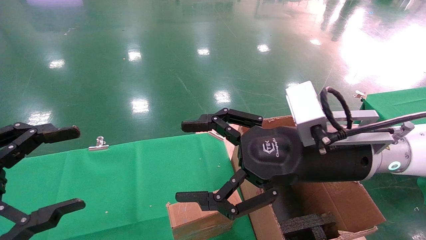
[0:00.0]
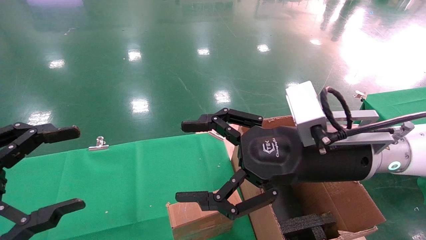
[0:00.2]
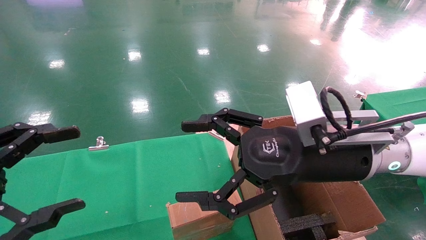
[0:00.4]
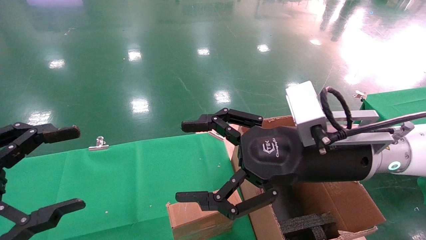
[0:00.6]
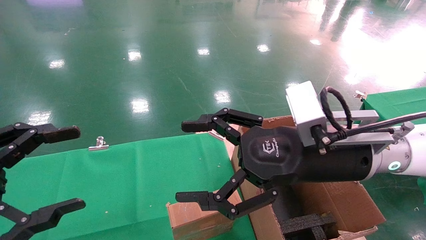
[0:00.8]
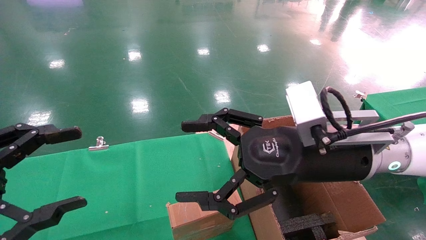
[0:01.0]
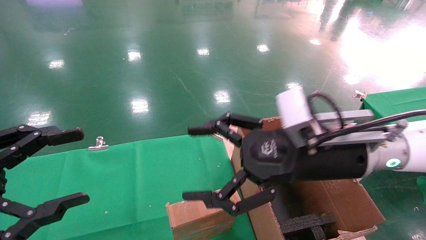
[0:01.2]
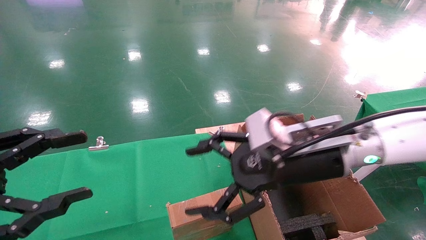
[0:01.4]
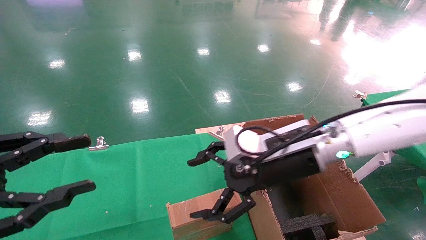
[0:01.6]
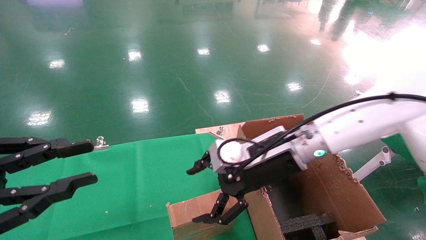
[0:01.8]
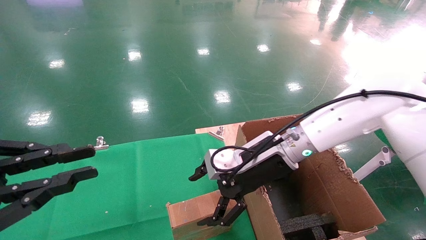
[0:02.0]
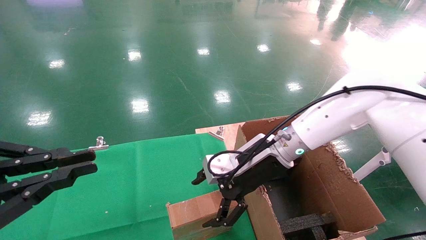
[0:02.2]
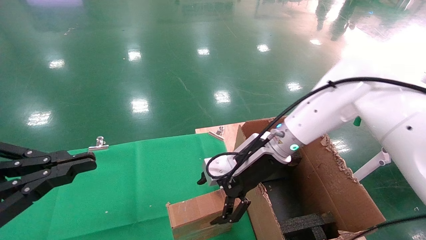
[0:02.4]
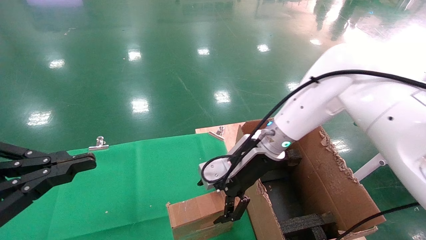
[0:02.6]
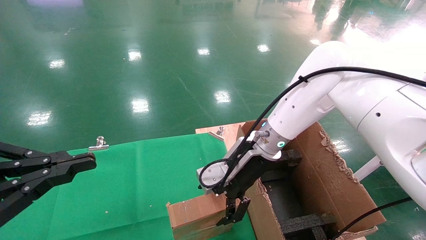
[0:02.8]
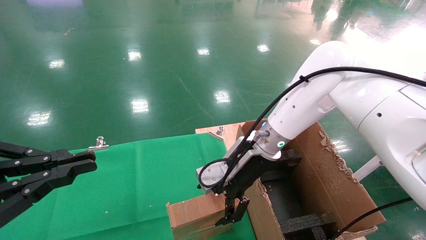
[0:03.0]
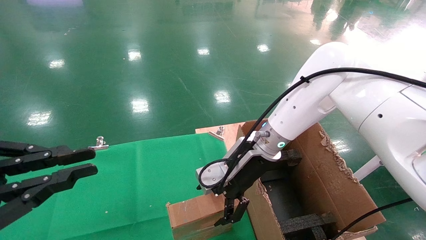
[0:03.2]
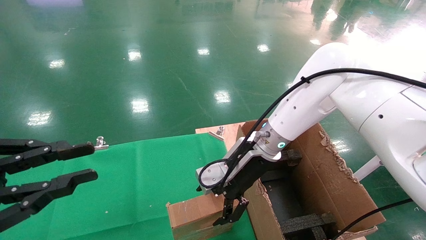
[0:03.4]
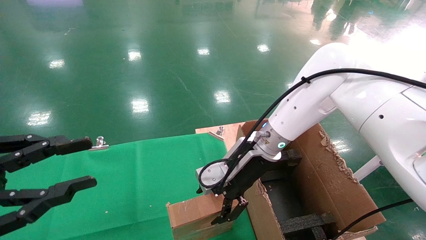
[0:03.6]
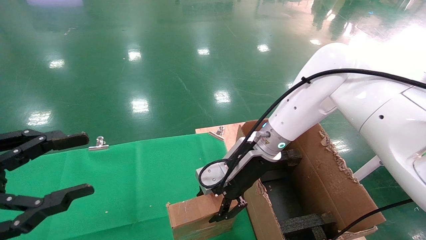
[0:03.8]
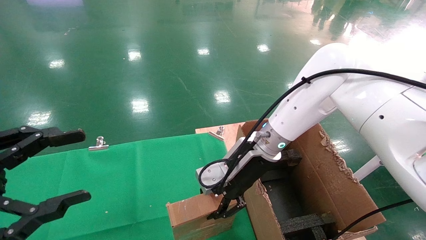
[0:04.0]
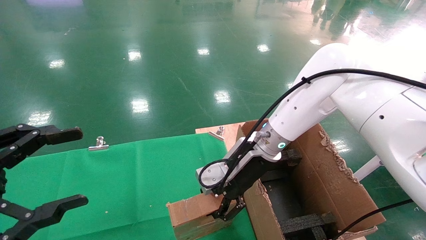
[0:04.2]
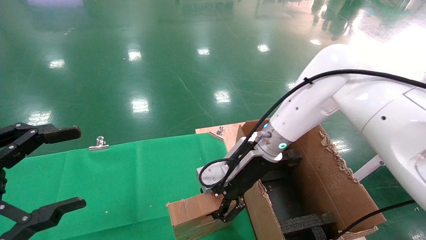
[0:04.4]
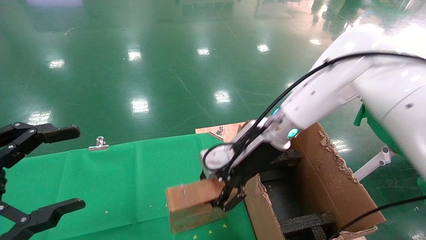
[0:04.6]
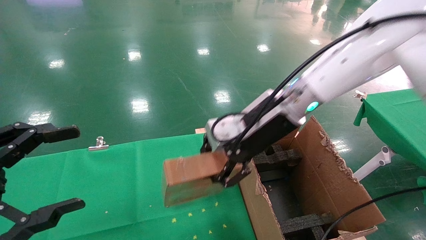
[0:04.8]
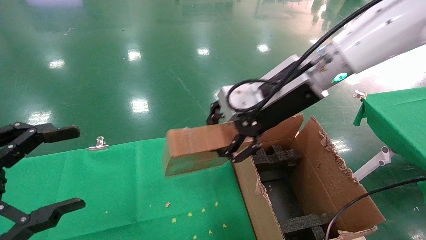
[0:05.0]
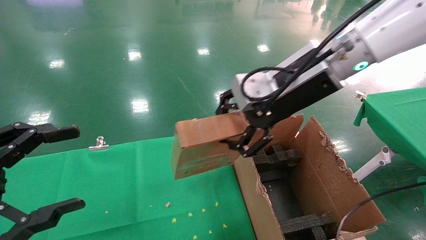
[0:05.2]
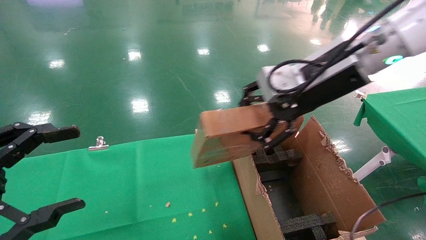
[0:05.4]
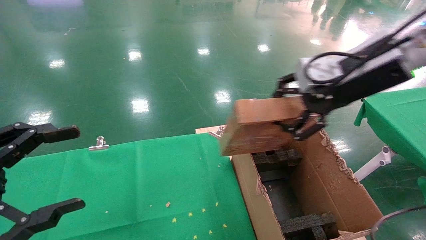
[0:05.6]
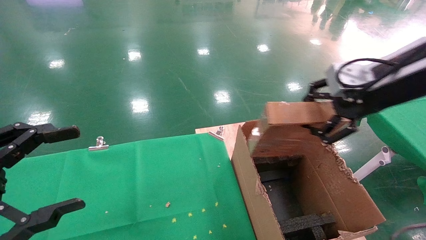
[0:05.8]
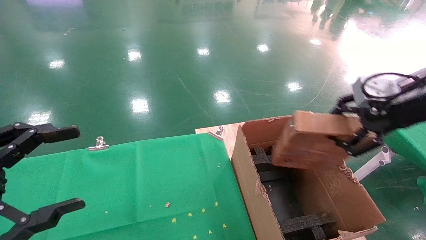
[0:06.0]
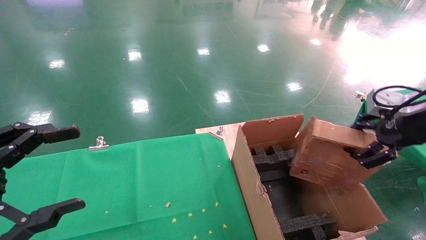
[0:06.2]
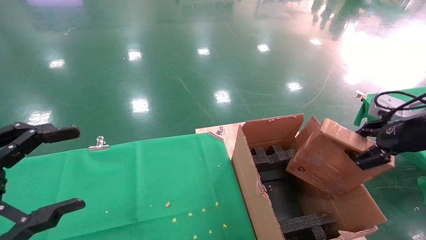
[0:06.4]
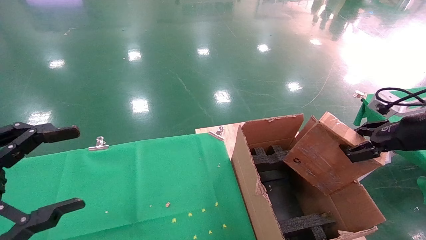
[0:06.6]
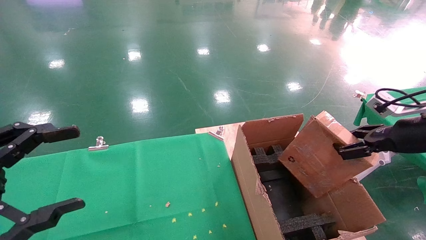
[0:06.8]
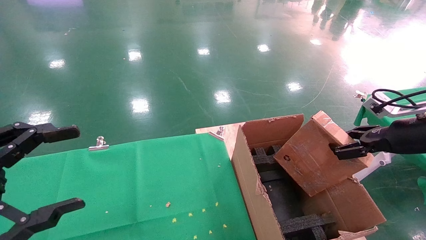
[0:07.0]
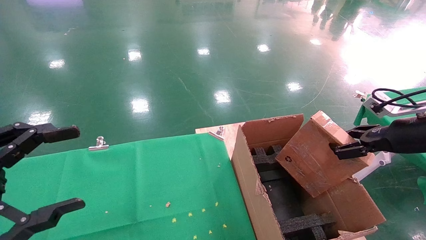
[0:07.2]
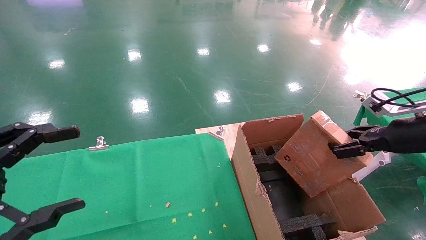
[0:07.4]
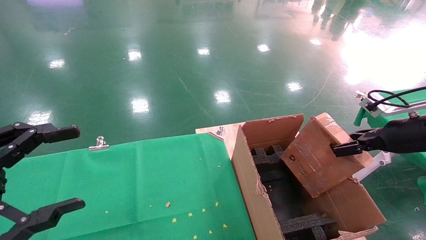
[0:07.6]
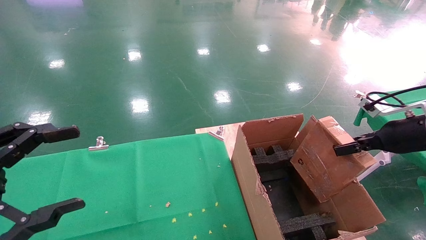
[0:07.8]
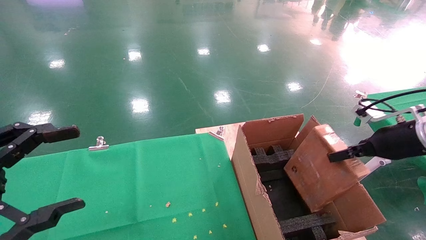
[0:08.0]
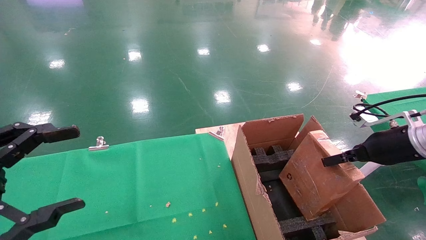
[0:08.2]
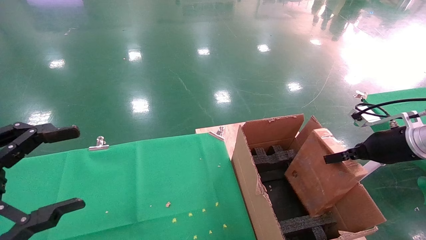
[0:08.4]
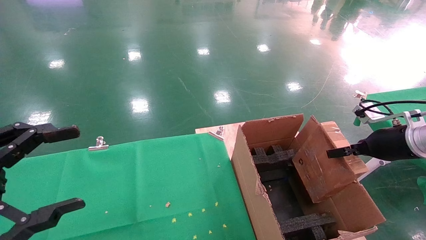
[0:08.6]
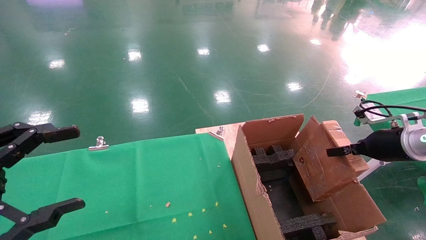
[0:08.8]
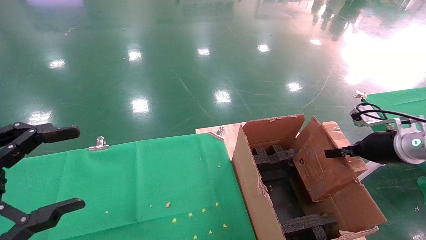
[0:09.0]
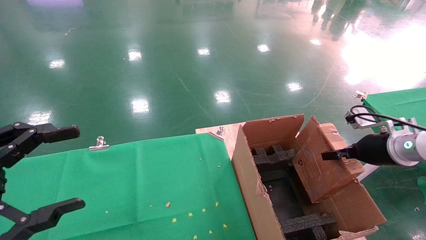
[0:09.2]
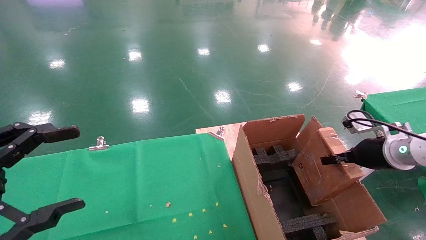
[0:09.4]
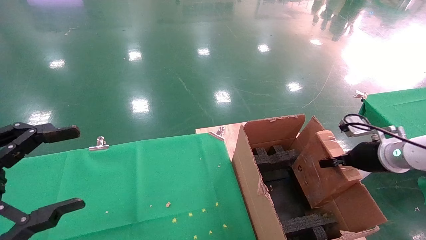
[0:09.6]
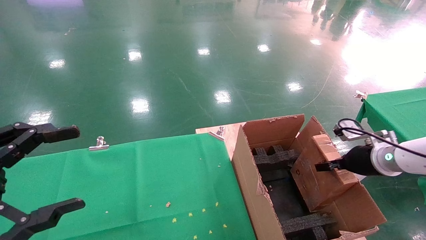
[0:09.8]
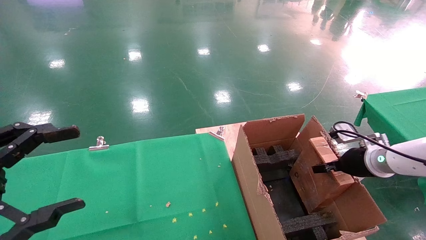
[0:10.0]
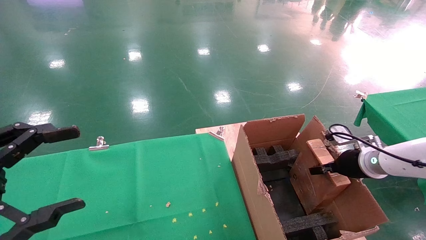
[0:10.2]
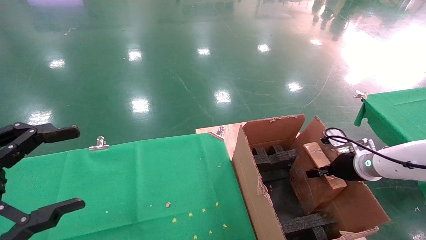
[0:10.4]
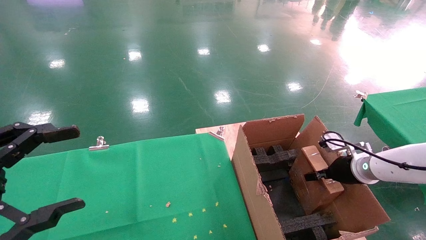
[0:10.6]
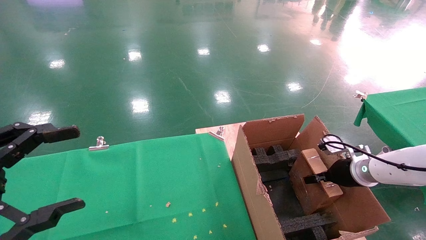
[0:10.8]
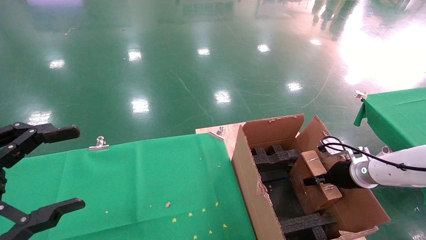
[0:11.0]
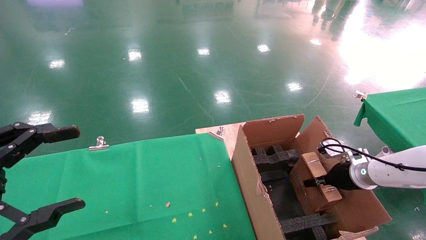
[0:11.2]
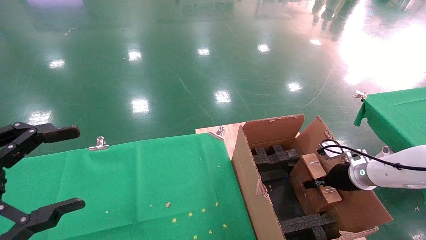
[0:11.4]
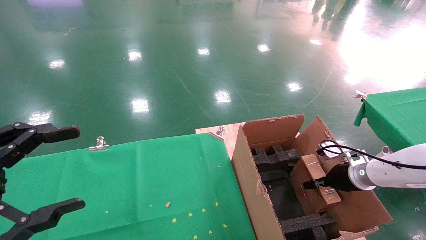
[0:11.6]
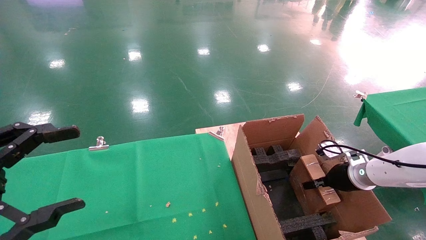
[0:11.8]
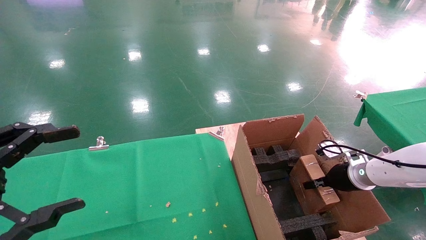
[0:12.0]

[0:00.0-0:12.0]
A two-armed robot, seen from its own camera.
Task of the whole recording: using a robotic arm to pick up a cardboard box and palace it the carton.
Step, 0:01.2 to 0:04.0: Pick up the mouse and the power cord paper box.
0:00.0 to 0:01.6: The right gripper shifts some 5 cm forward. Meanwhile the left gripper closes up.
0:01.6 to 0:03.0: The left gripper closes, while the right gripper travels forward by some 10 cm.
0:03.0 to 0:04.4: The left gripper opens up; the right gripper closes up.
0:04.4 to 0:06.0: The right gripper moves to the right, upward and backward, roughly 30 cm.
0:06.0 to 0:07.6: The right gripper is displaced downward and to the right by some 15 cm.
0:07.6 to 0:09.0: The right gripper moves roughly 5 cm.
0:09.0 to 0:10.4: The right gripper heads downward, covering about 10 cm.
0:10.4 to 0:12.0: The grippers stay close to where they were, moving slightly.

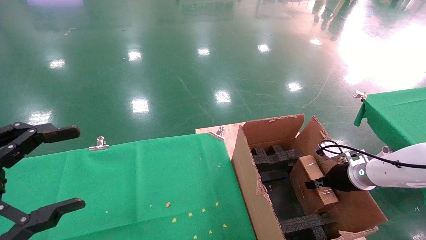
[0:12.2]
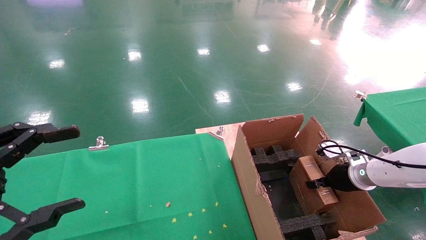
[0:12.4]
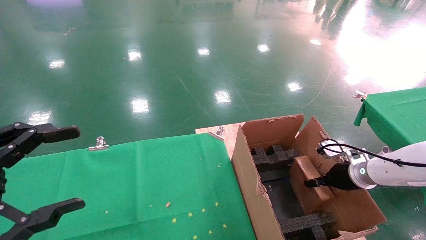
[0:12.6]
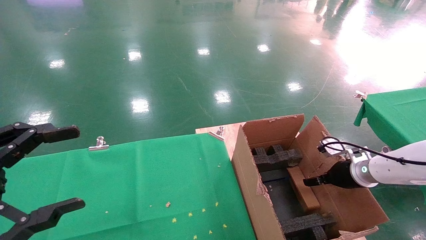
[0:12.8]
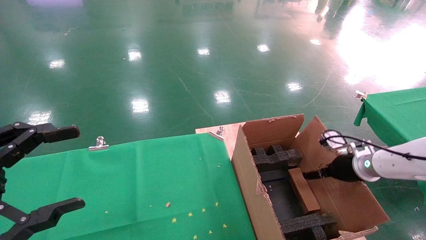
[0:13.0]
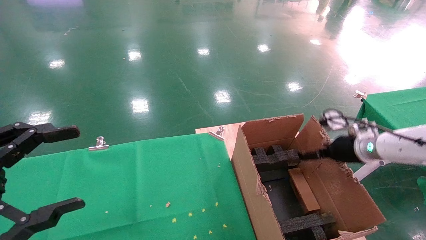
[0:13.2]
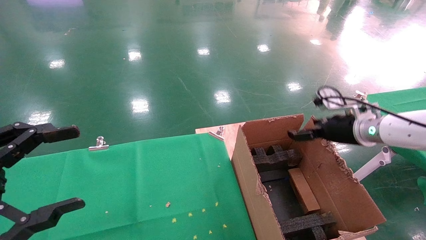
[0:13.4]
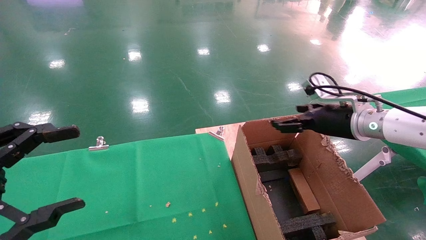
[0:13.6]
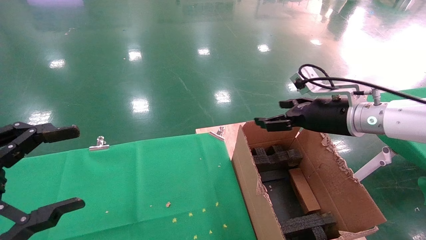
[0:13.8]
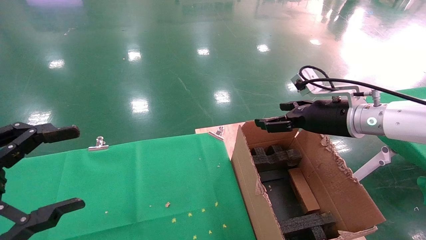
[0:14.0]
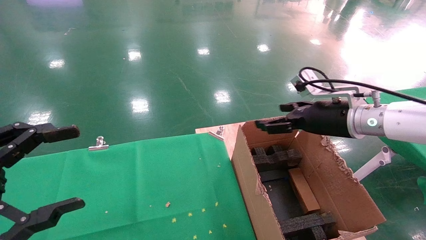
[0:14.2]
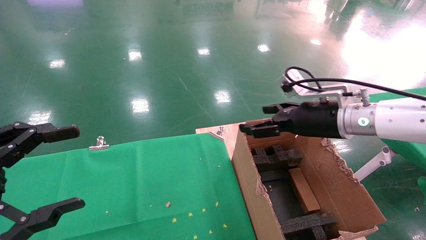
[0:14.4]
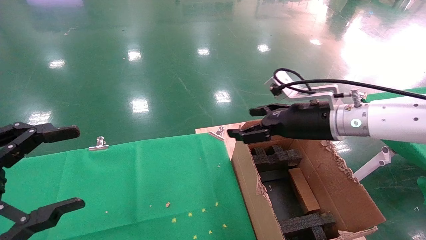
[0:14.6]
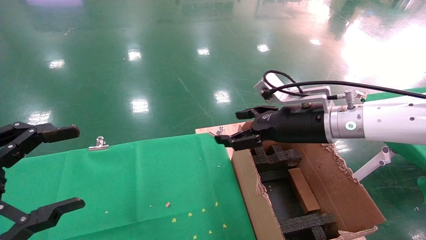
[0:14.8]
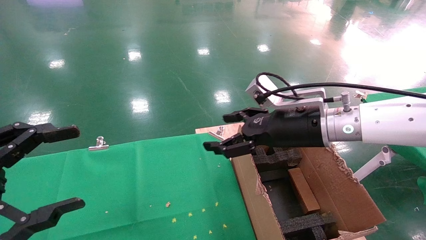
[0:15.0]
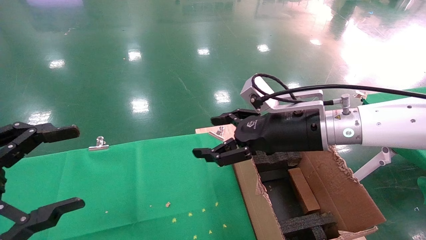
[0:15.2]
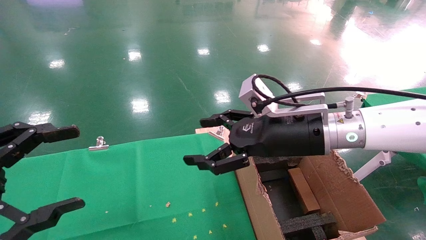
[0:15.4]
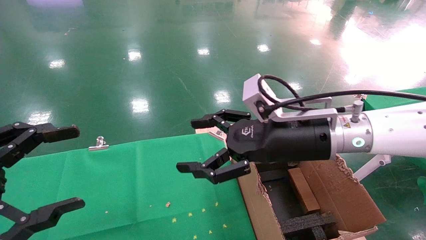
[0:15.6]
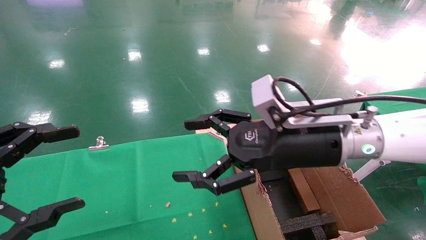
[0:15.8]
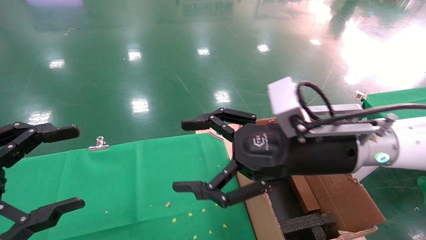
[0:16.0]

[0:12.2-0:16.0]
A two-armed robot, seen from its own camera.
Task of the whole recording: using a robotic arm to pick up a cardboard box and palace it the carton.
0:12.2 to 0:13.4: The right gripper moves upward, about 15 cm, and opens up.
0:13.4 to 0:14.8: The right gripper travels to the left and upward by some 15 cm.
0:14.8 to 0:16.0: The right gripper heads backward, covering approximately 5 cm.
